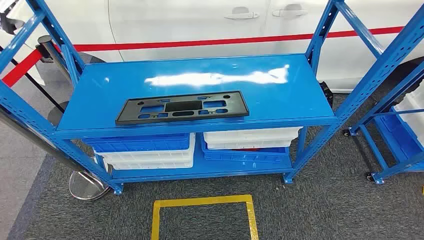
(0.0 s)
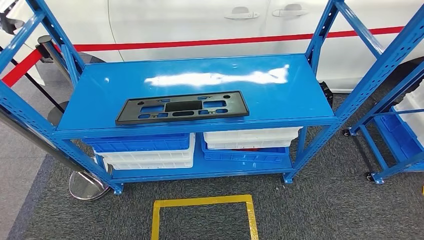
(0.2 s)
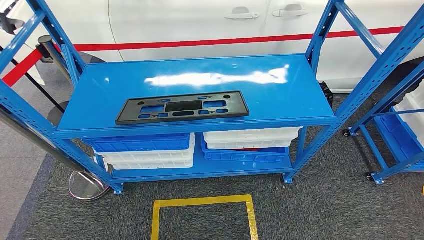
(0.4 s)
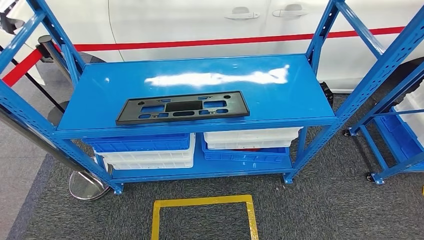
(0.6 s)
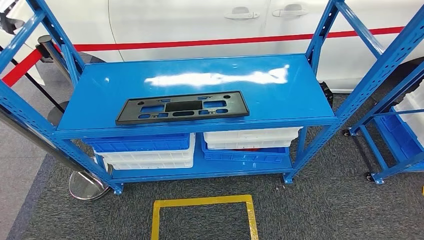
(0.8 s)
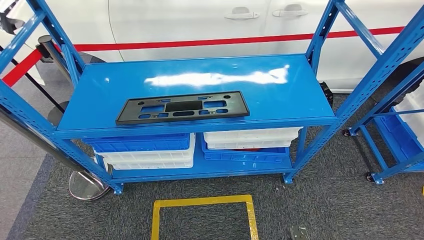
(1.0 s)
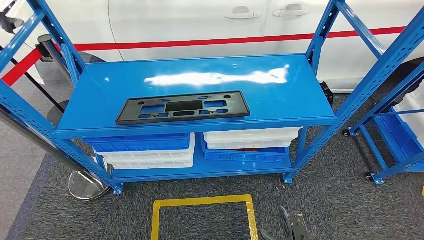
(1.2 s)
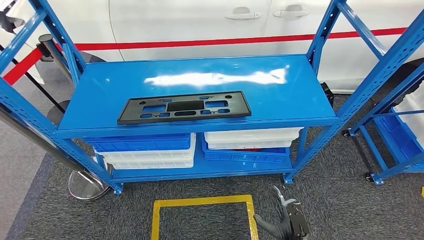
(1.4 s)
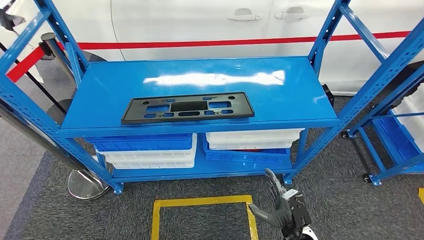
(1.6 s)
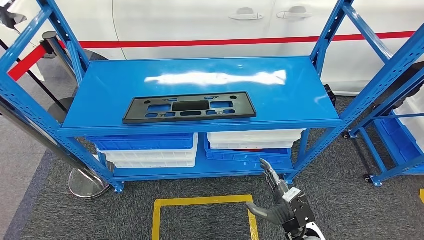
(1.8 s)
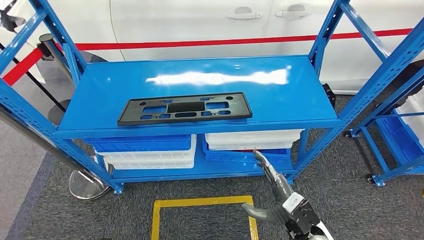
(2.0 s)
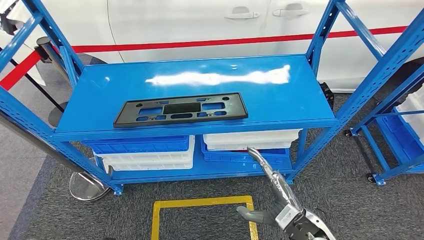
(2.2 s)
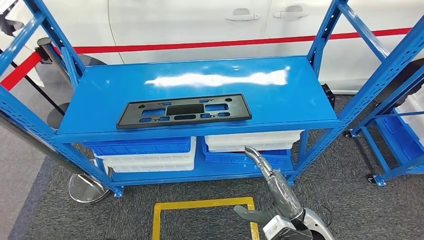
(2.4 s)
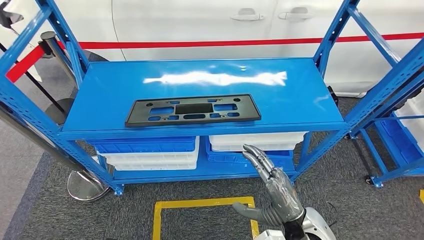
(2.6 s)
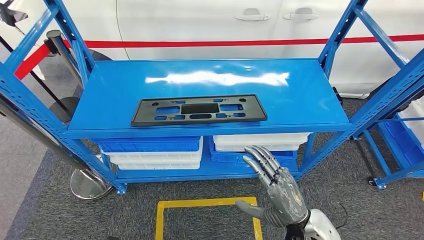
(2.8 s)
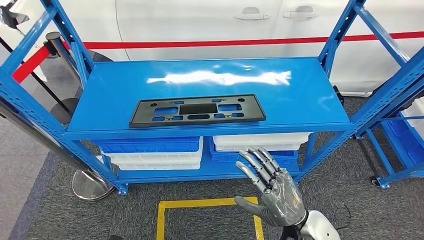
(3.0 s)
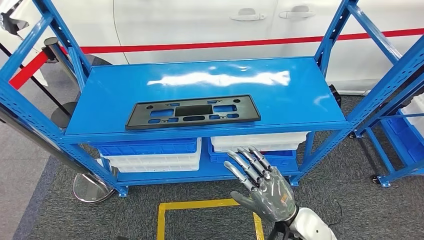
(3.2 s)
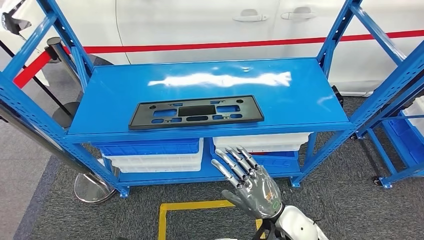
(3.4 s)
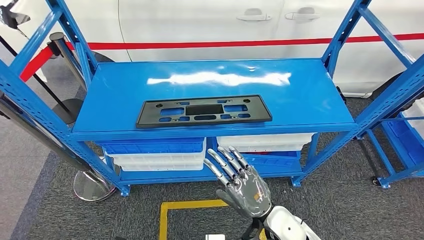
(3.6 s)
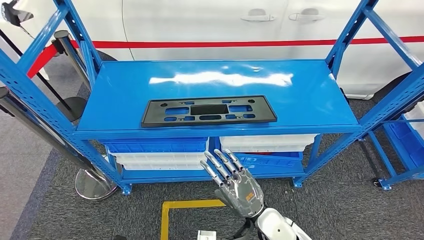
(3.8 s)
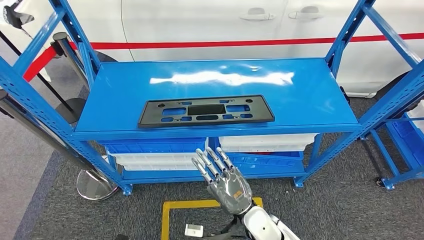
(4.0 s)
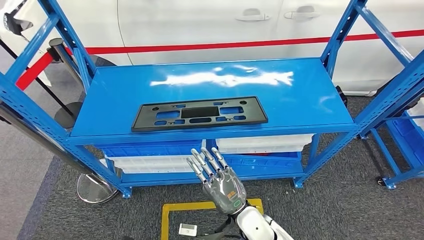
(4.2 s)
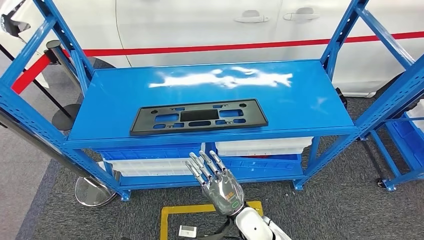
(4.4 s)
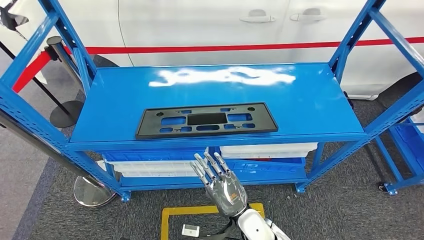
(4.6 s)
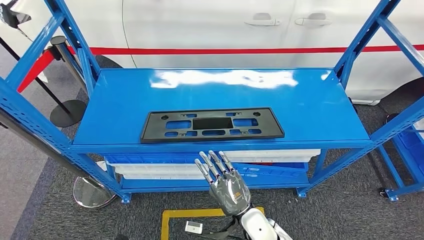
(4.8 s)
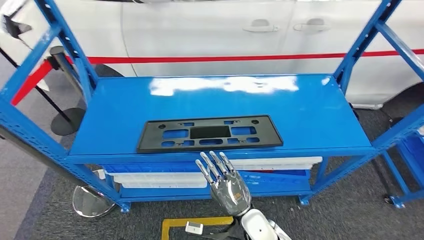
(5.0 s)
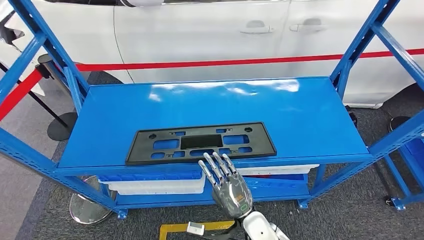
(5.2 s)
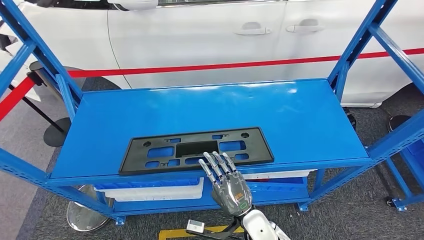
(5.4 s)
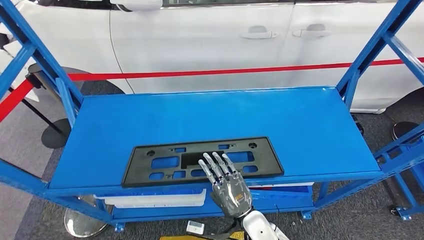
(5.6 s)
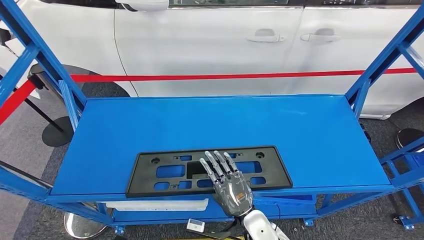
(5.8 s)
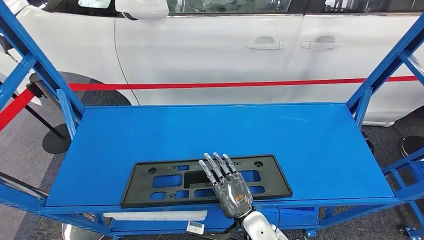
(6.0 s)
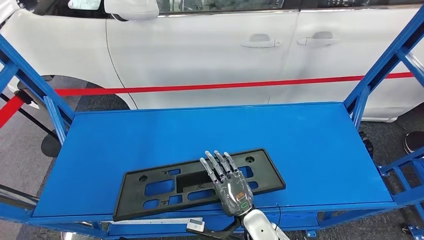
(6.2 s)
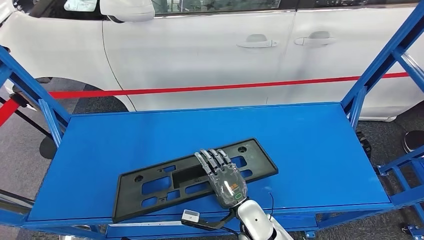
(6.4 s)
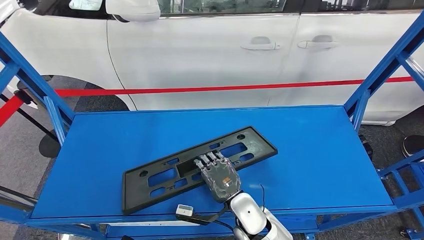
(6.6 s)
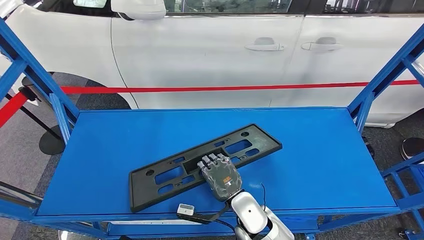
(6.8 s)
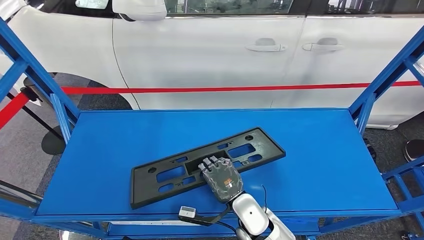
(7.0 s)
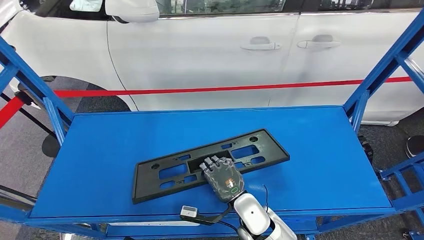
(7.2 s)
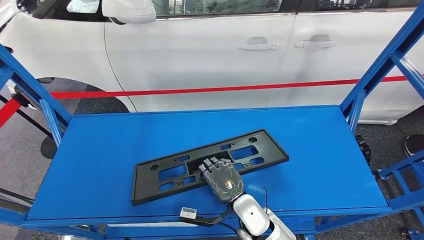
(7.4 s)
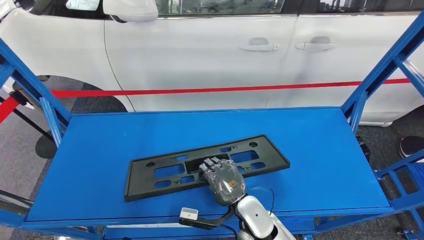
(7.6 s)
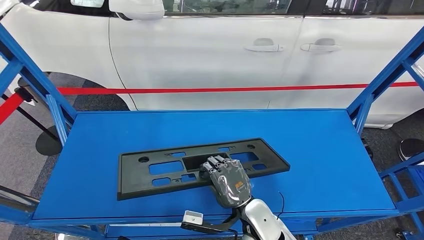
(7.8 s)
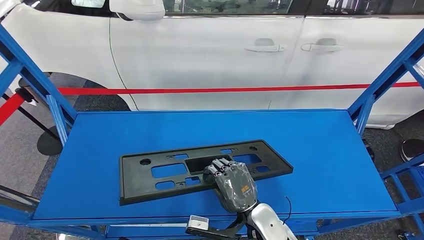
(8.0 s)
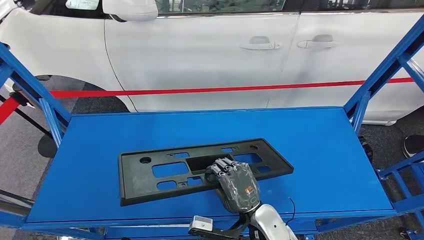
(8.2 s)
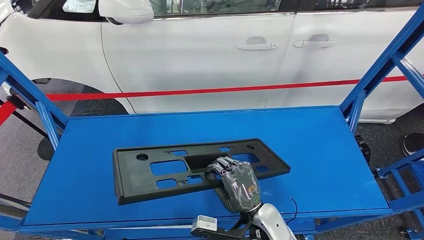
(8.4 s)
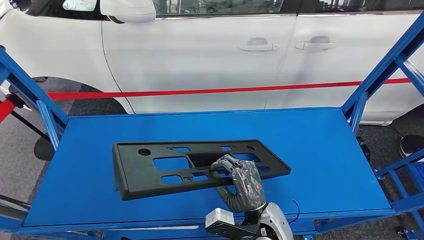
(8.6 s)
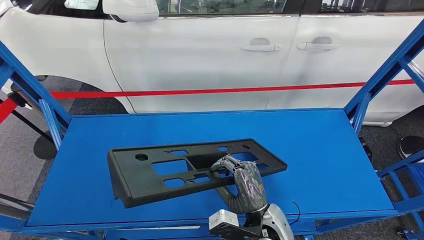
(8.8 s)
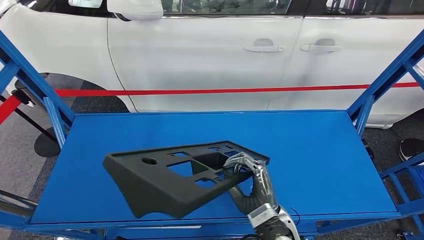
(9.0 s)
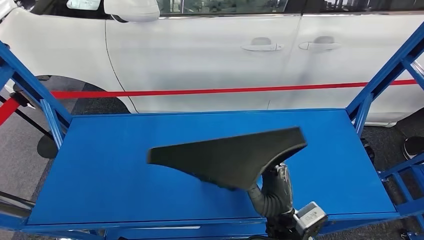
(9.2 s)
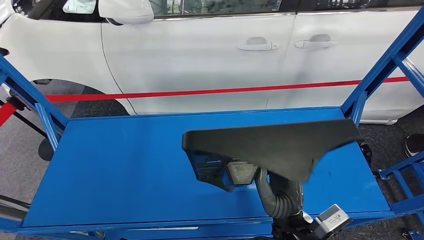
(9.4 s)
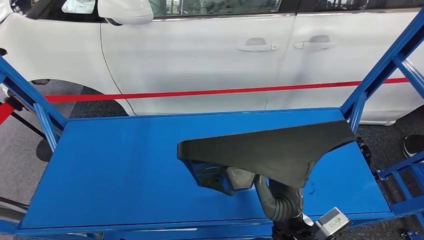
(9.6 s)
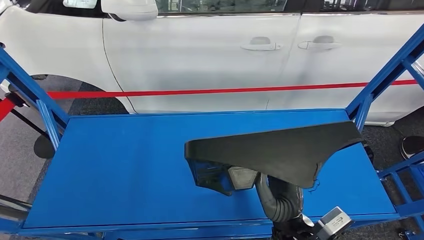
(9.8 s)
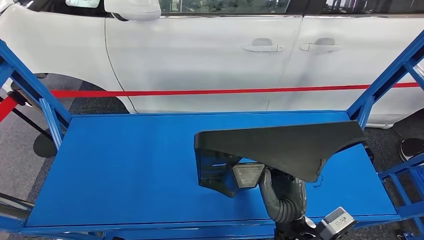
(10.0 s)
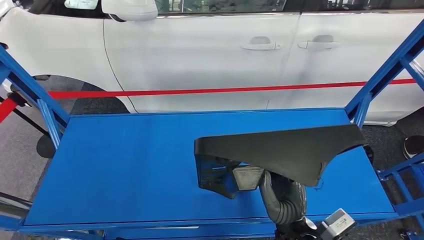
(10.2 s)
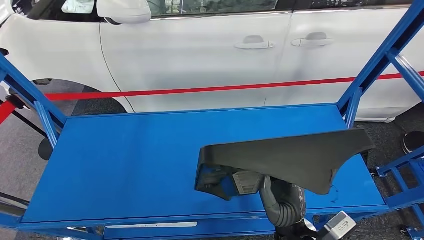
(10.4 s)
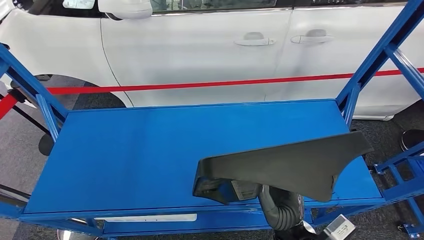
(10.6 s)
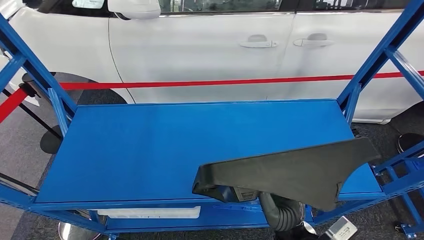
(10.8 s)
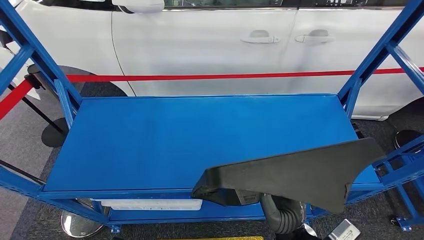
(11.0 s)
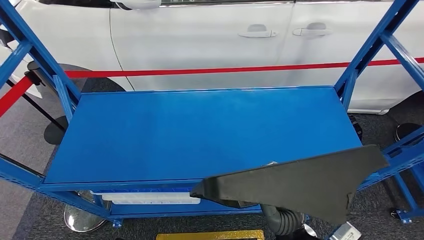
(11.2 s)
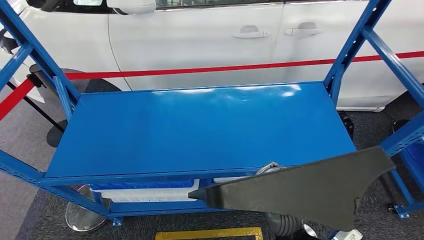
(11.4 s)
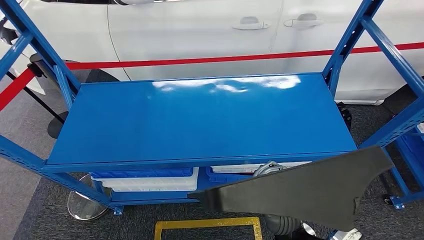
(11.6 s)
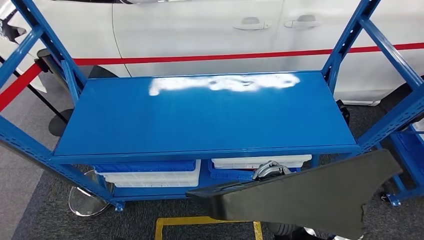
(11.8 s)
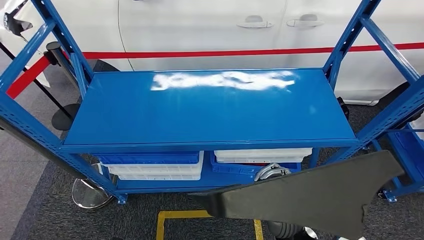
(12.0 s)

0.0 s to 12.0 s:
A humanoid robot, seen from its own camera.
Step, 0.0 to 10.2 s: Pick up the large material from the shelf.

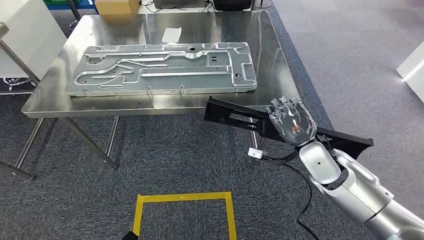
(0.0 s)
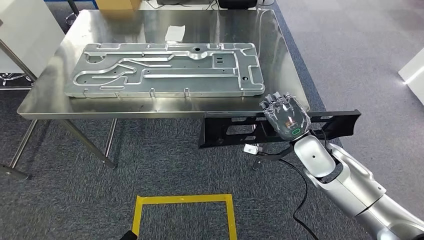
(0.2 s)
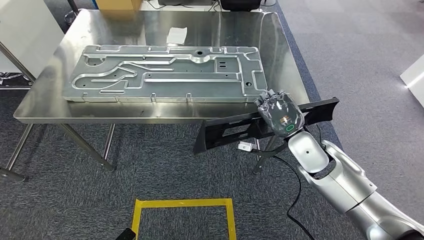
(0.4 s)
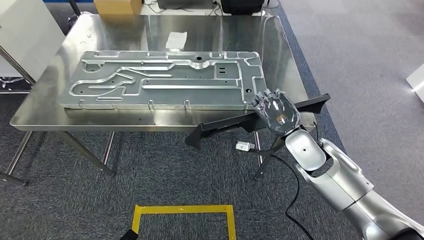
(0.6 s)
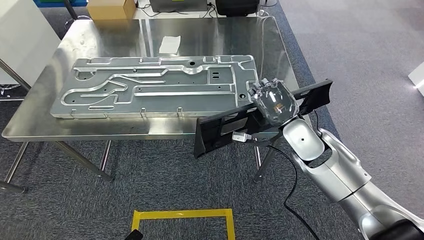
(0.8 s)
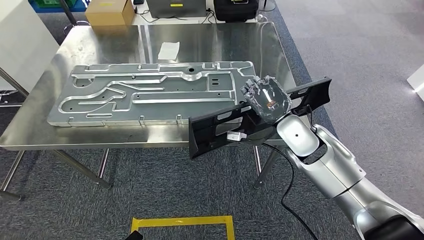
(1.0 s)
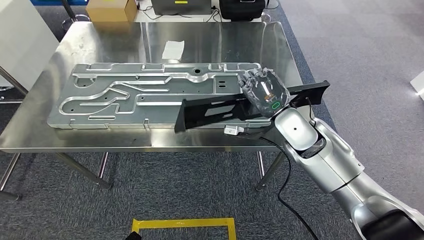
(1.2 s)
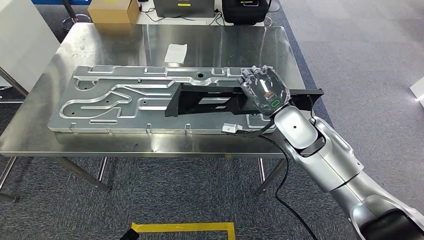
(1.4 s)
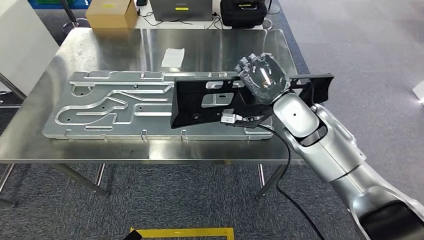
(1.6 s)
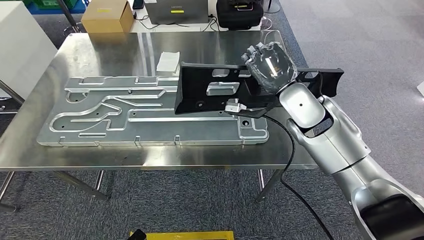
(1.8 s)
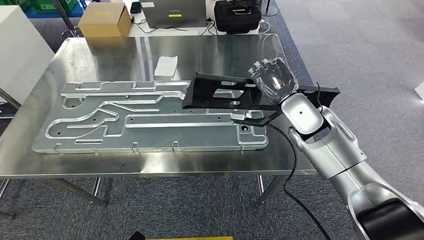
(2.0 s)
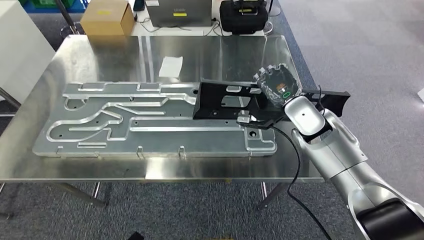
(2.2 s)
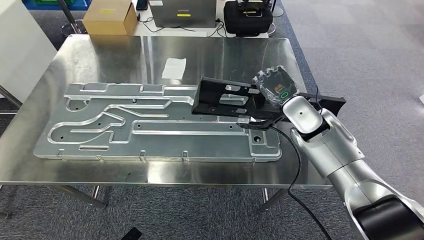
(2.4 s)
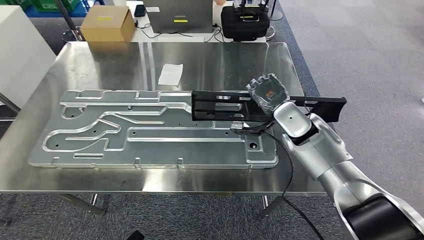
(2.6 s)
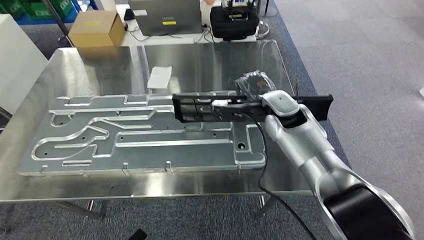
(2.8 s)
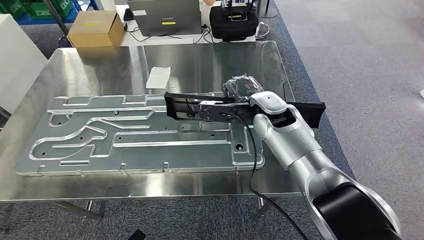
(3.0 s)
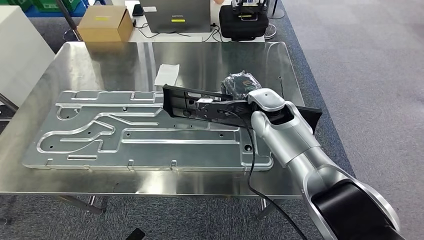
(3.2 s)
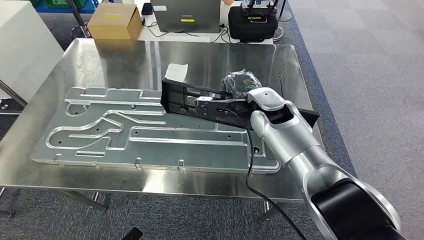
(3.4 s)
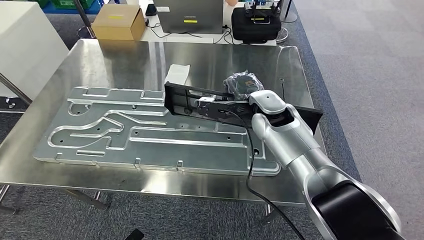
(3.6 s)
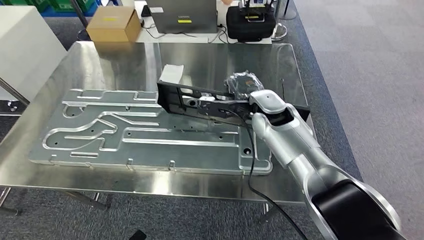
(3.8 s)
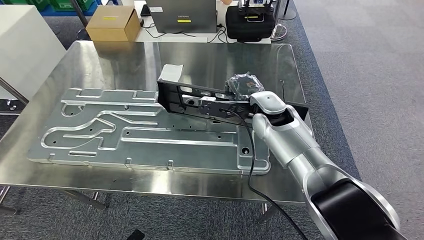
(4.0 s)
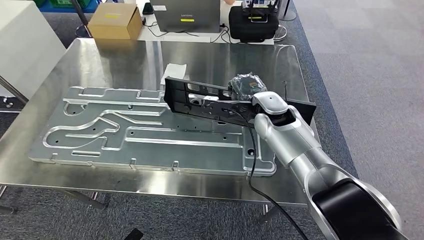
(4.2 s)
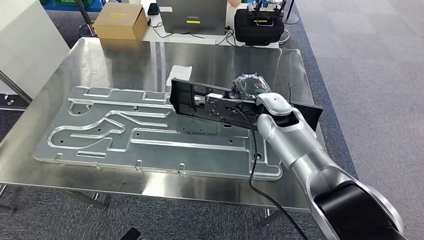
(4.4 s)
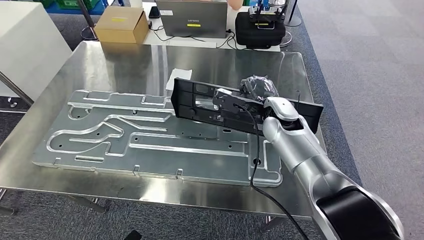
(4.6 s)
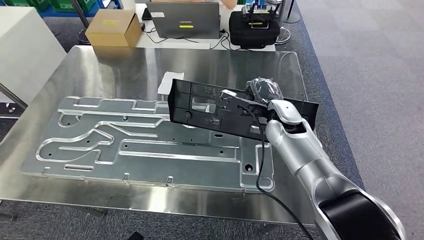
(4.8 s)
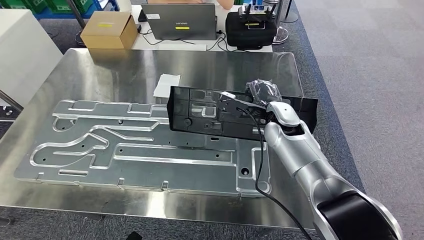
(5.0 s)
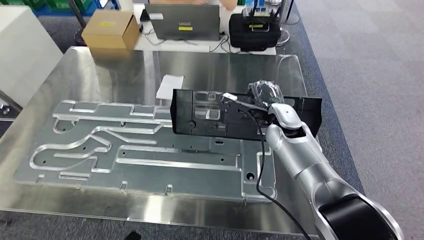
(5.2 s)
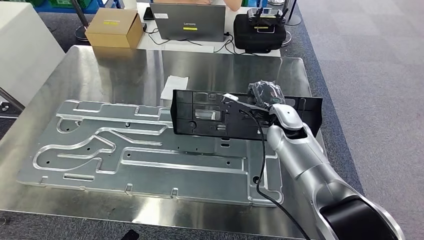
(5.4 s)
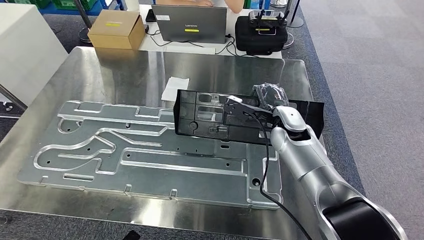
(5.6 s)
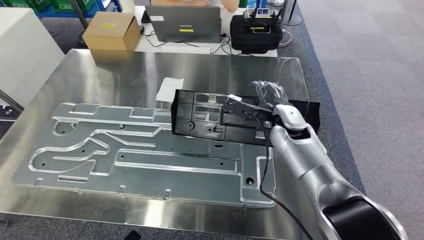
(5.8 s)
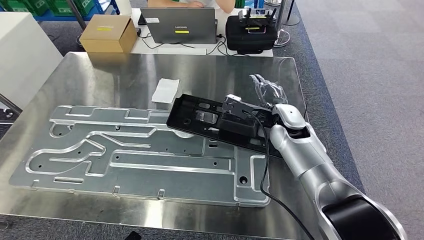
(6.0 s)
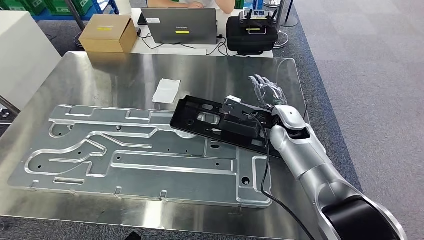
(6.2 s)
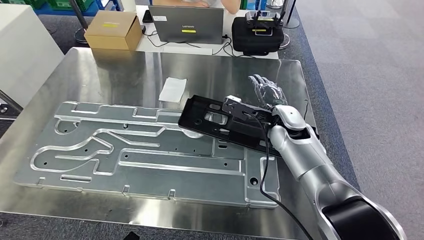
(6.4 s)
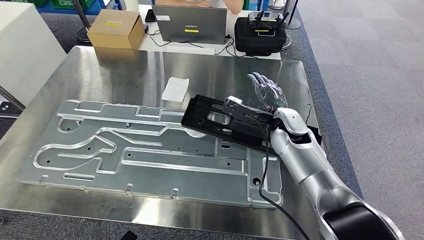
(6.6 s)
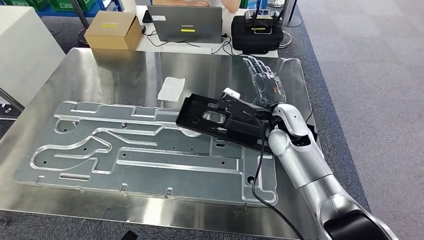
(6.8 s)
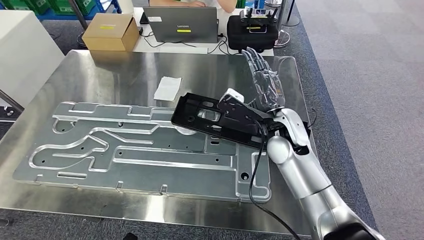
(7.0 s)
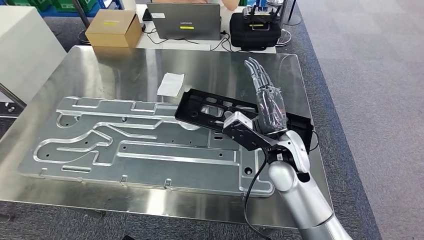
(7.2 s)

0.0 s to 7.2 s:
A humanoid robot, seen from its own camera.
Step, 0.0 to 2.0 s: Move the large material to the workbench.
